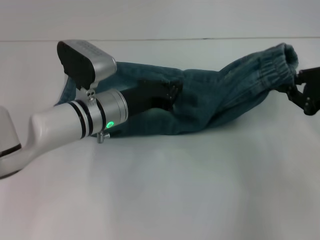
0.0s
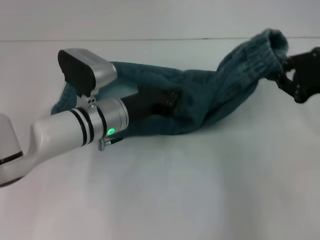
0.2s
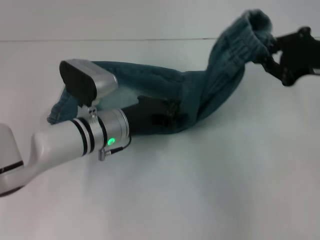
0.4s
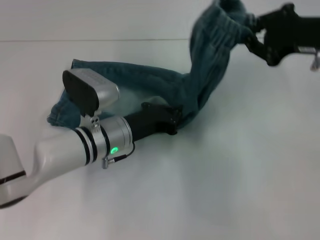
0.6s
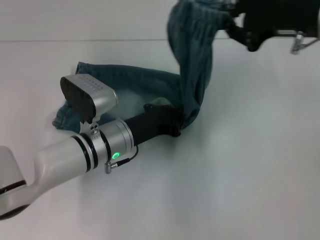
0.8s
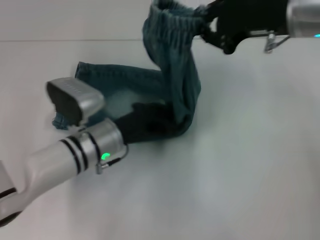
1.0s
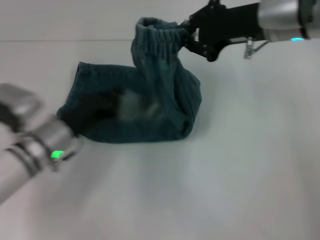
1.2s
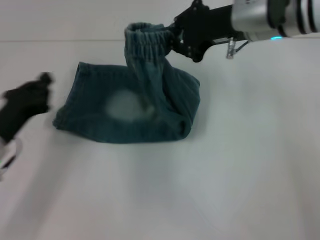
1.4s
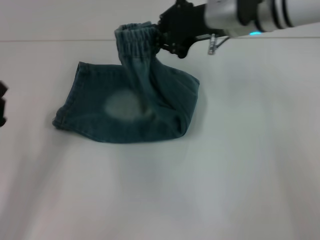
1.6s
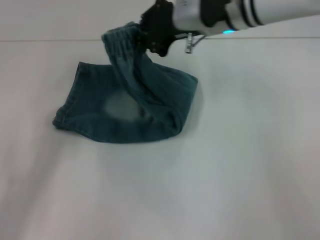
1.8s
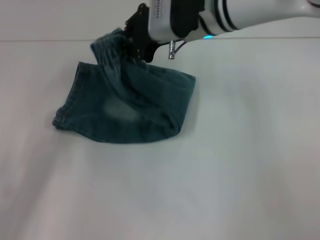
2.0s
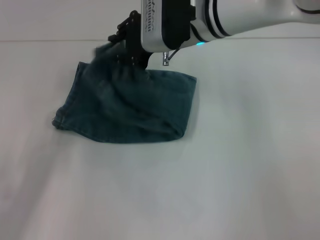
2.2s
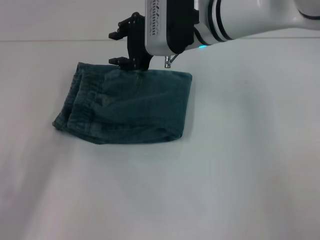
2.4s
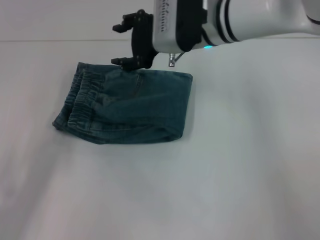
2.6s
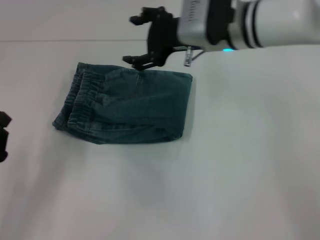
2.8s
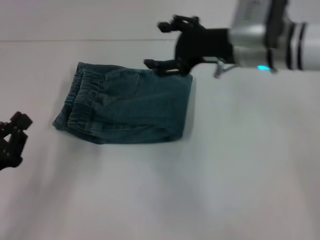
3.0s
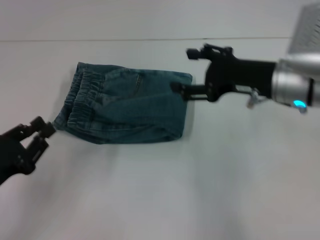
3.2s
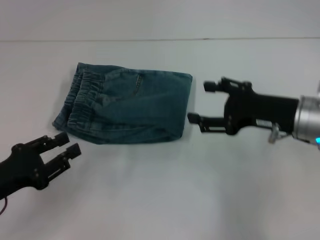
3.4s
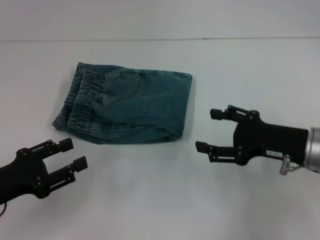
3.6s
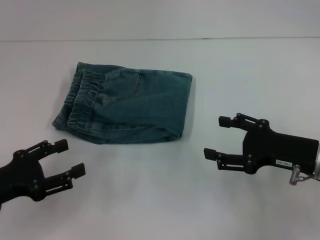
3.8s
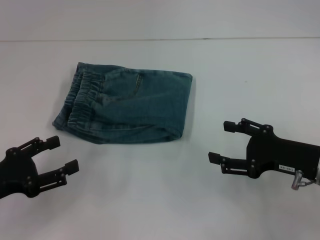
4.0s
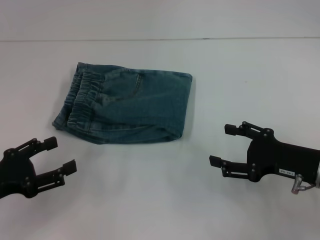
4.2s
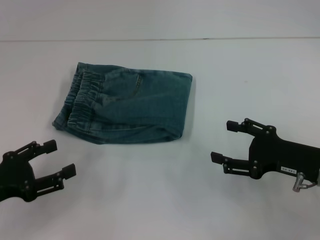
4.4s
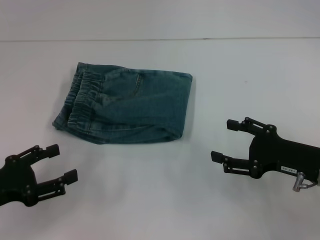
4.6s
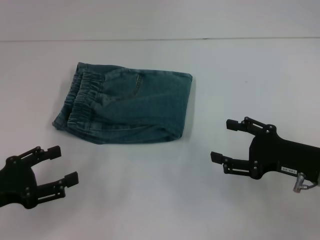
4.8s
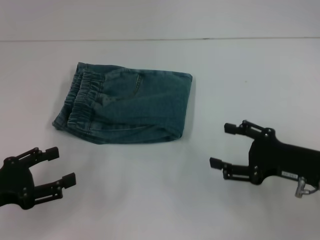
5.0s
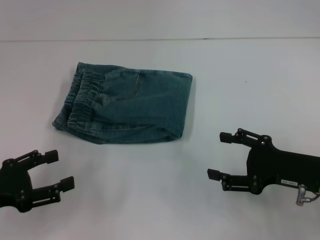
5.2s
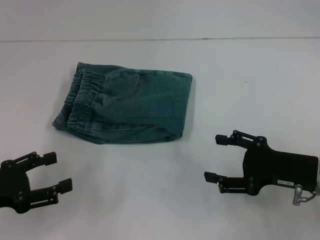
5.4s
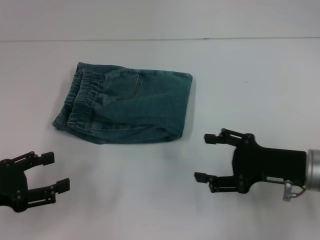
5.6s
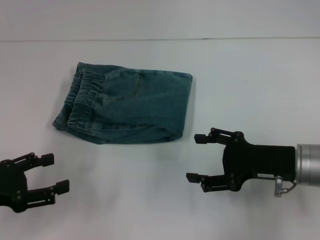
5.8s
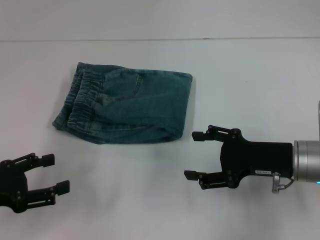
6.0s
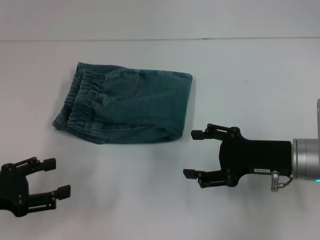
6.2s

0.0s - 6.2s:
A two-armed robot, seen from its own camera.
Step, 1.0s - 2.2s: Fold to the left with your right hand.
0.0s - 1.6s: The right gripper is displaced to the left and forward by some 25 cm. The left gripper moves to the left and backward, some 25 cm.
1.6s - 3.2s: The right gripper is displaced backward, to the right and downward by roughly 15 cm, and opens up.
3.2s - 4.6s: The left gripper opens, while the right gripper moves backward, downward and to the right, approximately 15 cm.
4.6s - 6.2s: There are only small adjustments of the grippers.
